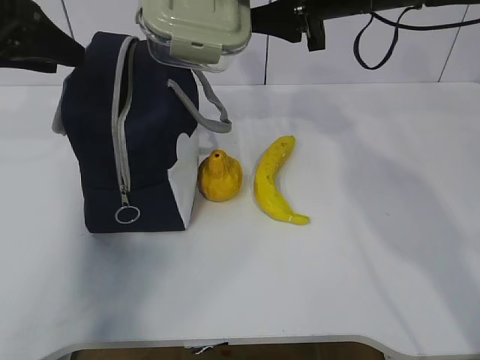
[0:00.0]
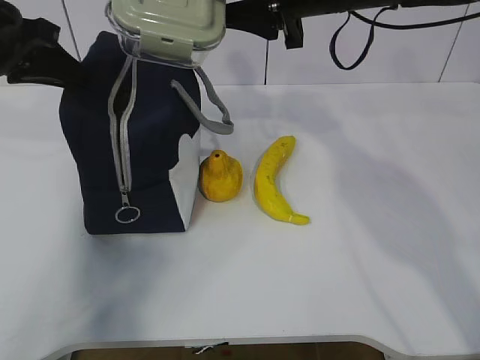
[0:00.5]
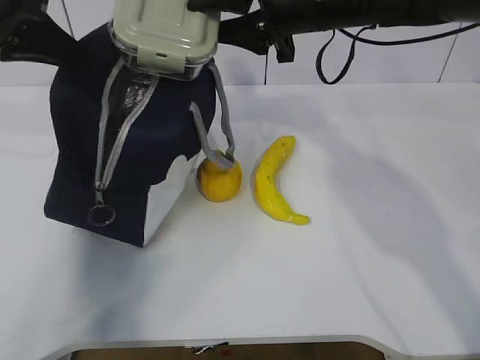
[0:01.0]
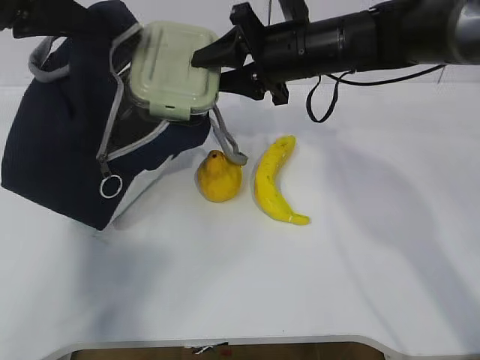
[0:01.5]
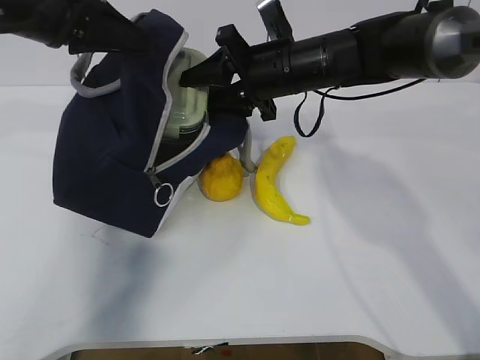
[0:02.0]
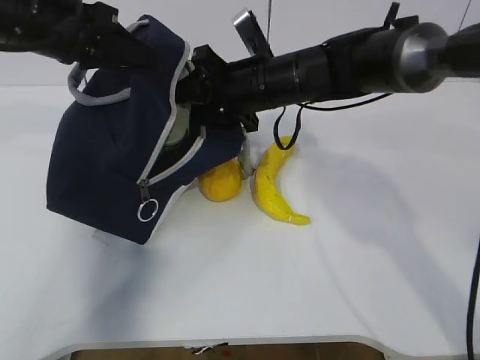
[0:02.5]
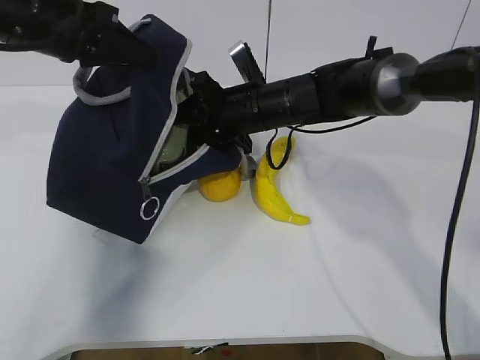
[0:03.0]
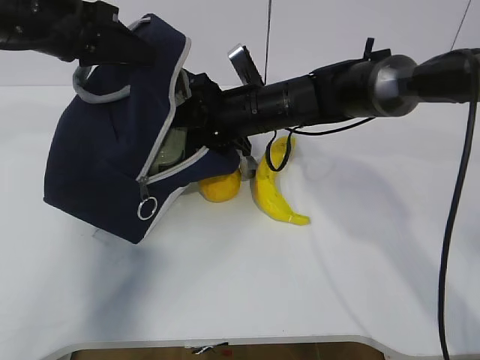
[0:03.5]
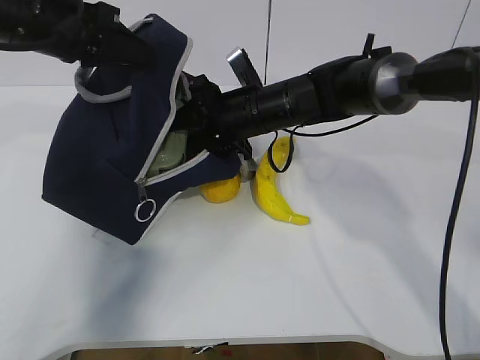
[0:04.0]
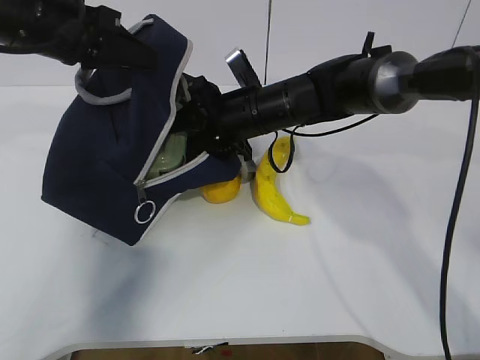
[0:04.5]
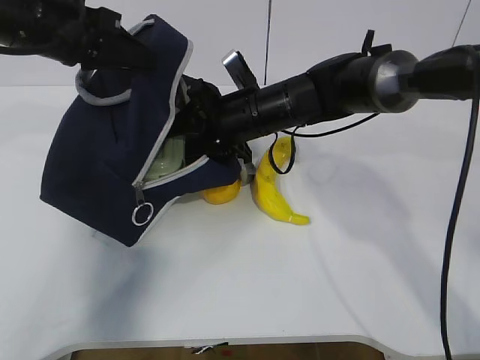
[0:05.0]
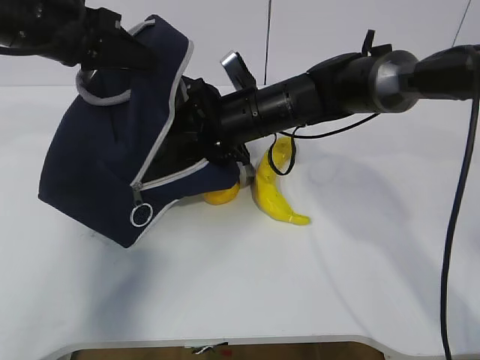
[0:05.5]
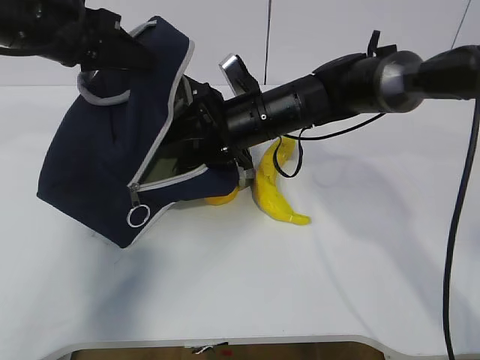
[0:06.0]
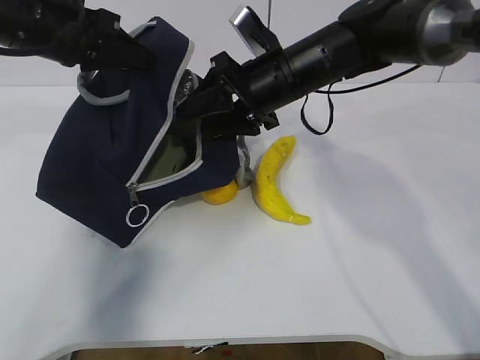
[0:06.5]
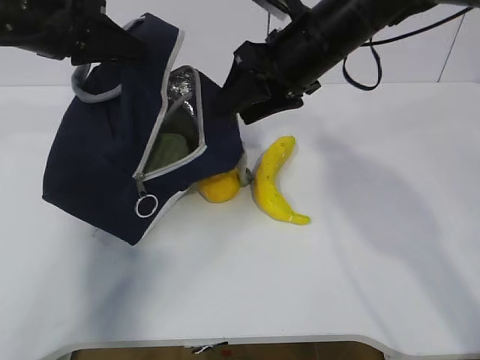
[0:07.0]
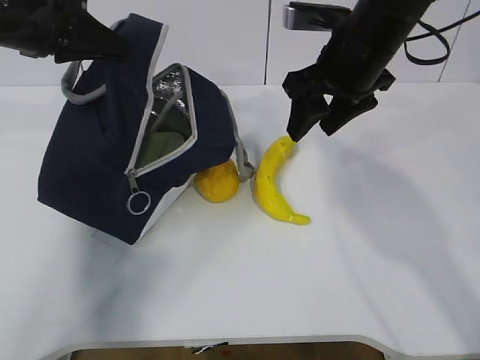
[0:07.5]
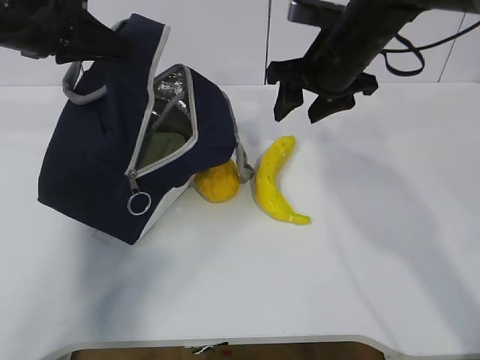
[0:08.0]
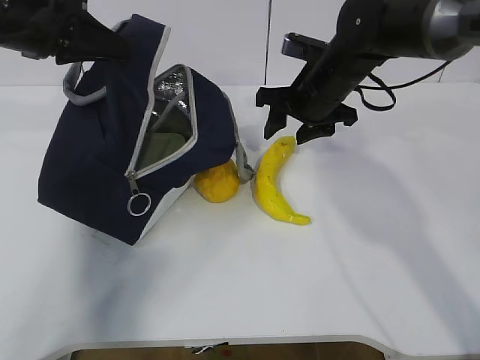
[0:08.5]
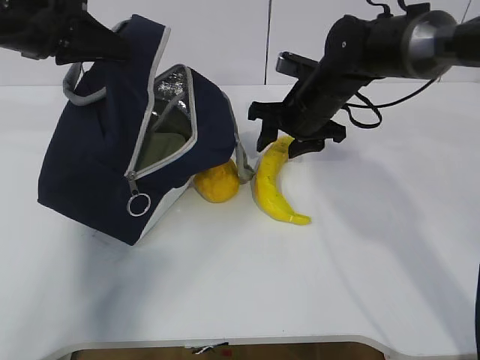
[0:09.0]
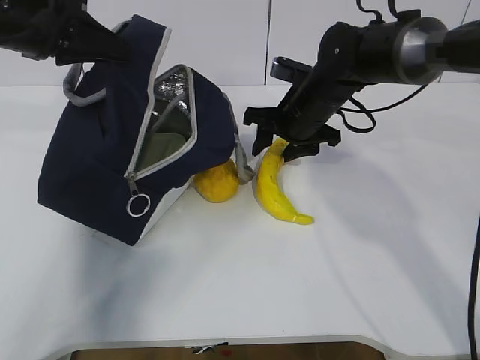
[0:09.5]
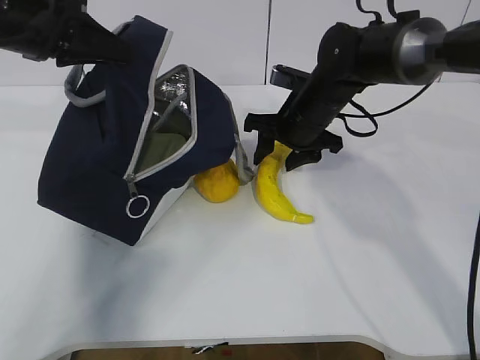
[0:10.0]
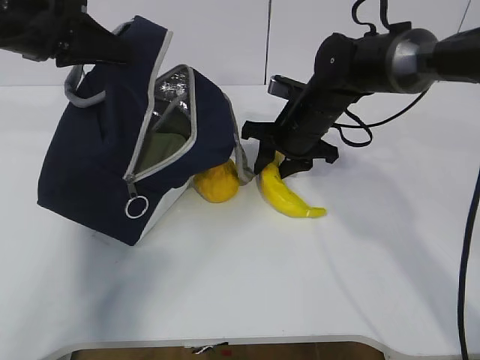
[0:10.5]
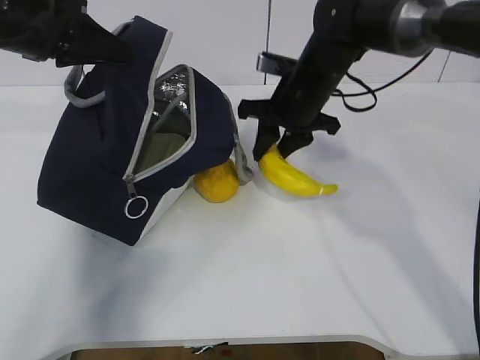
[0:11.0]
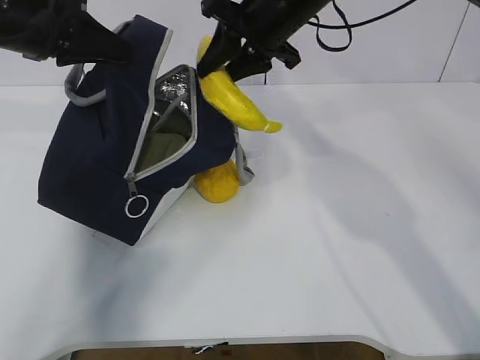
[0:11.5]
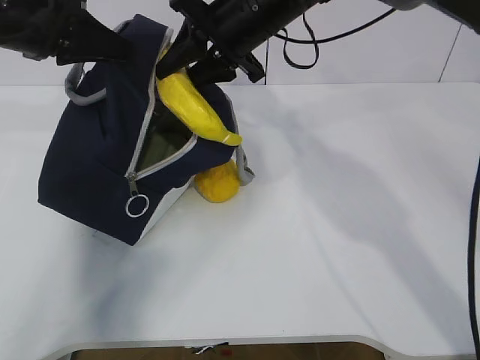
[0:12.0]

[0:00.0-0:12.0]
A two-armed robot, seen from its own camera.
Step, 0:02.5 to 0:05.5: Grab the banana with your right hand.
Step, 0:06.0 to 0:09.5: Place it into the bag with your right hand.
0:00.0 to 0:02.0: The right gripper goes about 10 cm downward and to the left, while the left gripper shifts about 5 cm to the right, and closes its fingers.
0:02.0 to 0:04.0: The right gripper travels downward by roughly 5 cm.
0:04.0 to 0:06.0: The grippers move only a little.
0:06.0 to 0:08.0: The right gripper moves upward and to the right, roughly 10 cm.
0:08.0 to 0:10.0: The right gripper heads downward, covering approximately 10 cm.
0:10.0 to 0:12.0: The right gripper travels upward and to the left by approximately 15 cm, and closes up.

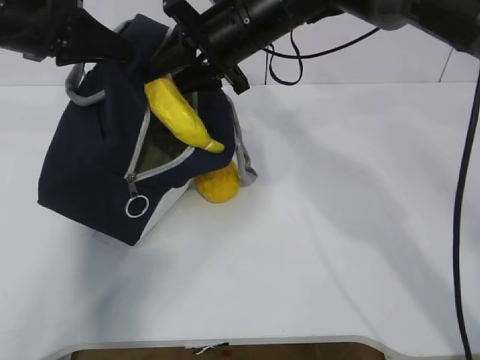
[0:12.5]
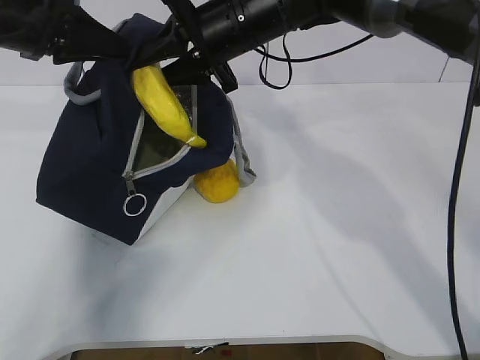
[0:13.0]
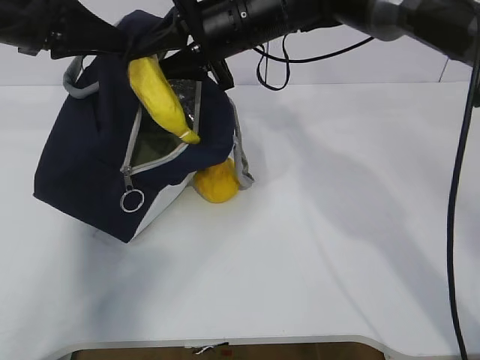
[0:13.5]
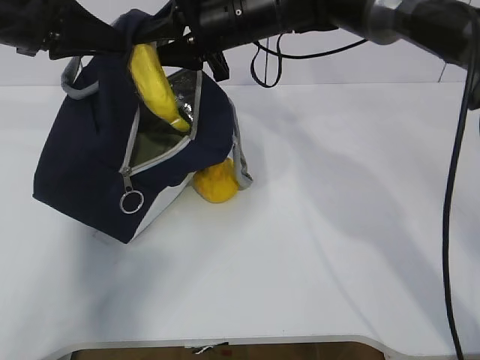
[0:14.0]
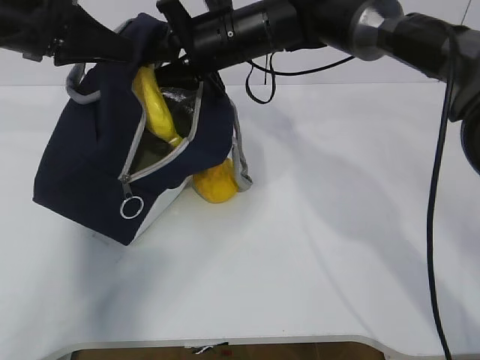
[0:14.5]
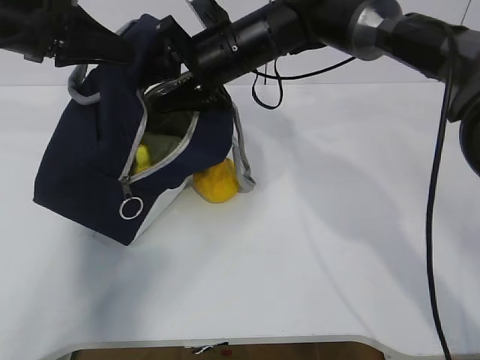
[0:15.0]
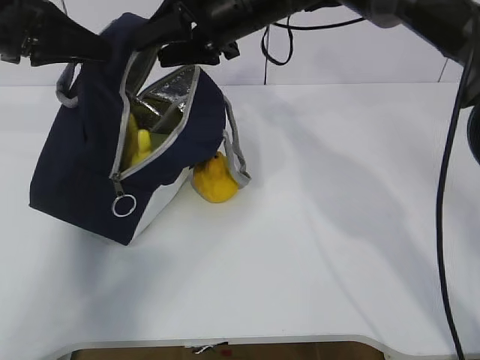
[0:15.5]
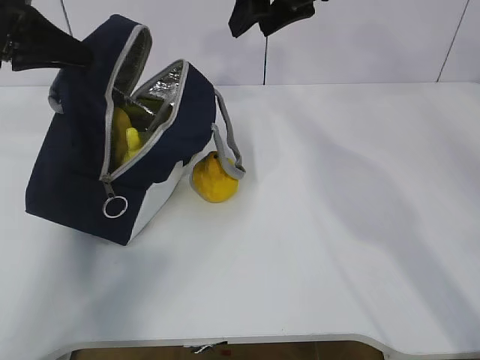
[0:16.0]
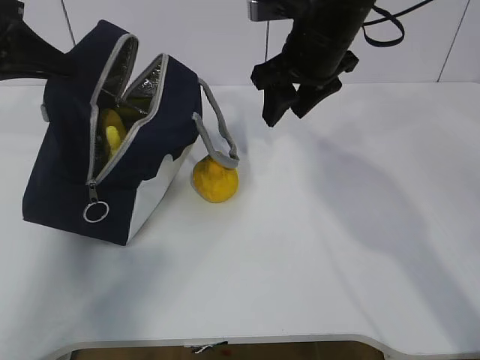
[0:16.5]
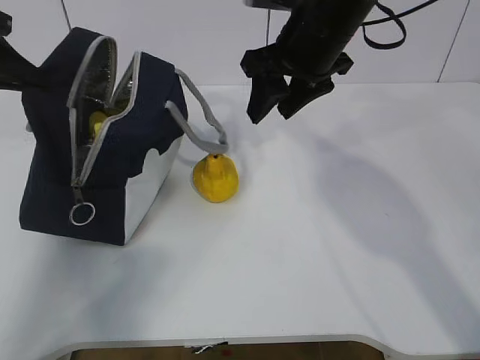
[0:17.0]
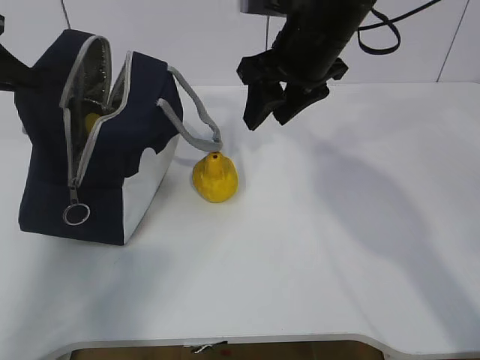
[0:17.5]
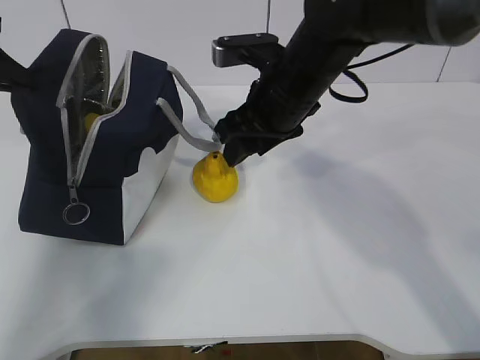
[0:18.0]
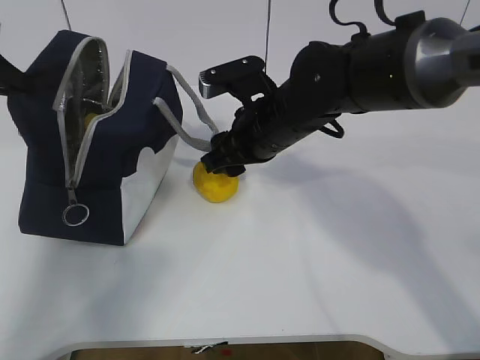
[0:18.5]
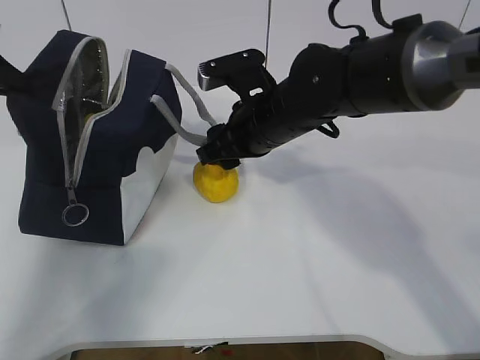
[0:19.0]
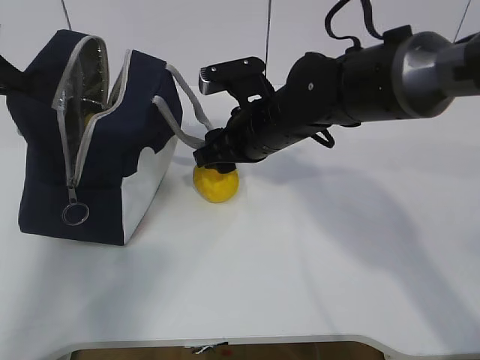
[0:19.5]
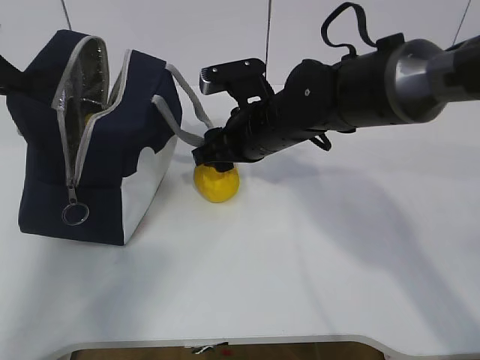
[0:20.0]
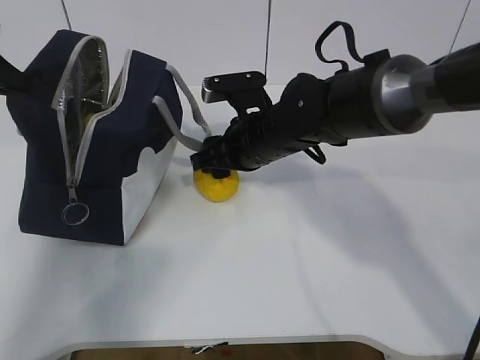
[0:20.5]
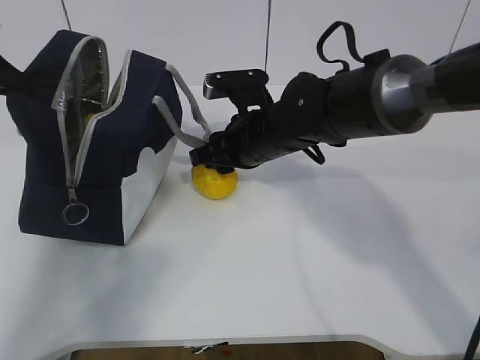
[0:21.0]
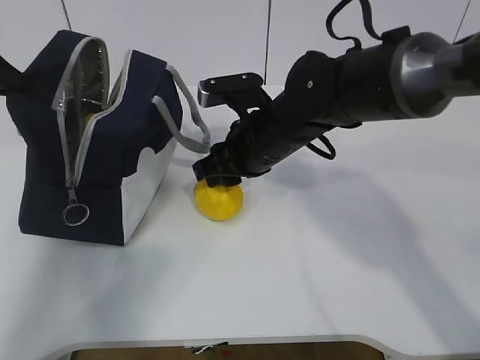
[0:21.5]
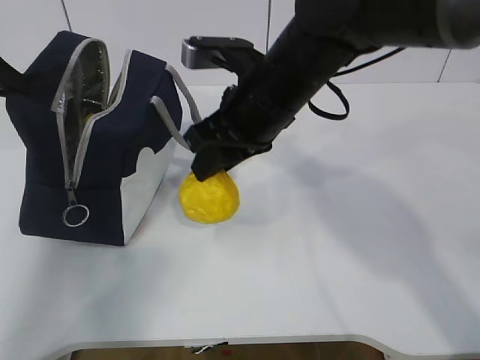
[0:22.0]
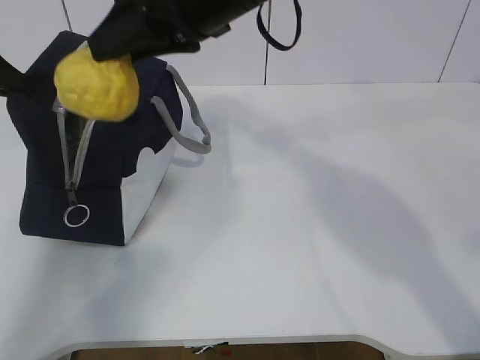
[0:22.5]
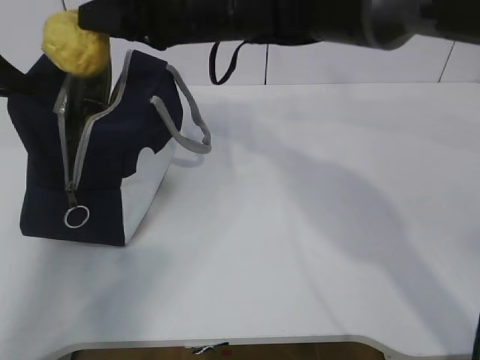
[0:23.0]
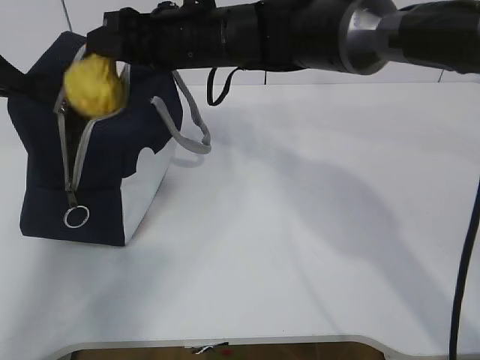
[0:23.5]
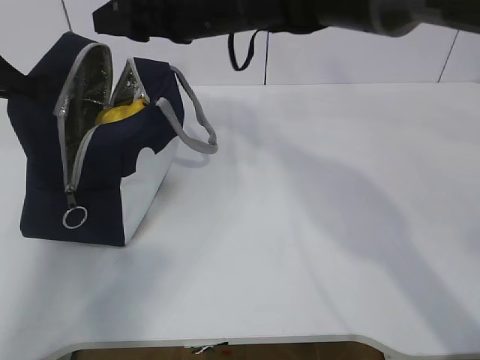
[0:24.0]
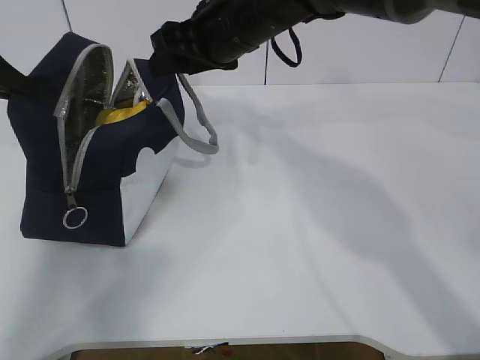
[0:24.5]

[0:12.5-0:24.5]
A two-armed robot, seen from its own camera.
Step, 0:12.5 to 0:15.0: Grab the pear with your right hand.
Step, 0:15.5 to 0:17.0: Secure the lunch bag with your left hand.
Step, 0:17.5 to 0:19.0: Grab the lunch bag with your right hand.
Step, 0:19.5 to 0:21.0: Move the lunch bag to the right.
0:12.5 to 0:14.5: The grippers make only small movements.
0:14.5 to 0:16.5: The right gripper travels to the right by roughly 10 cm, and moves roughly 10 cm upward and comes back; the left gripper shifts roughly 5 cm to the left.
0:16.5 to 0:18.5: The right gripper travels downward and to the left by roughly 10 cm.
0:18.5 to 0:20.5: The grippers make only small movements.
0:20.5 to 0:22.5: The right gripper heads upward, covering about 20 cm.
0:22.5 to 0:24.5: The right gripper travels forward and downward by approximately 10 cm, and opens its fingers.

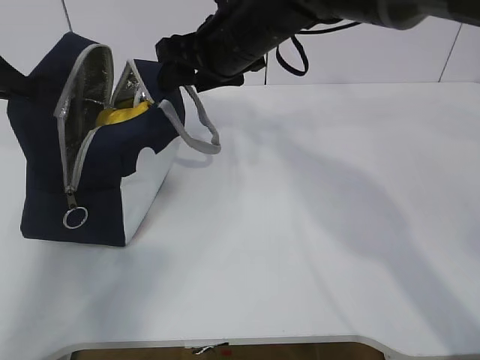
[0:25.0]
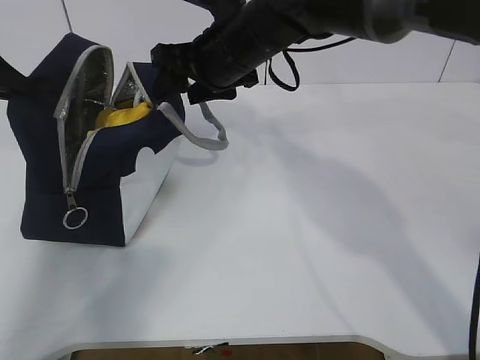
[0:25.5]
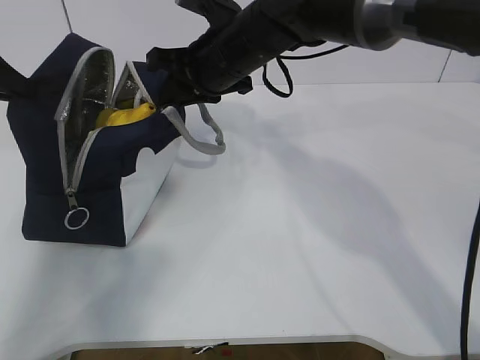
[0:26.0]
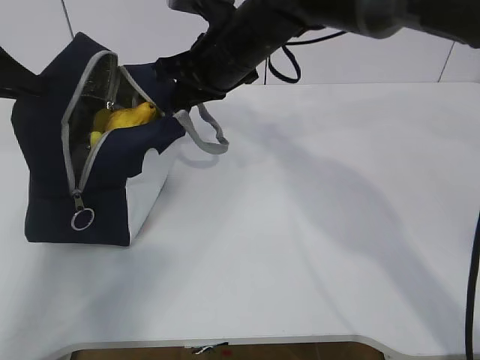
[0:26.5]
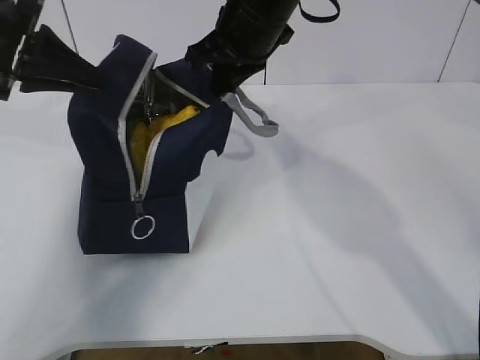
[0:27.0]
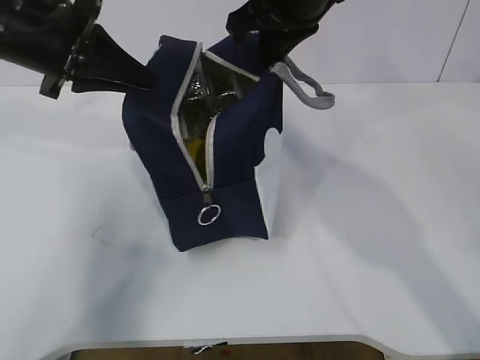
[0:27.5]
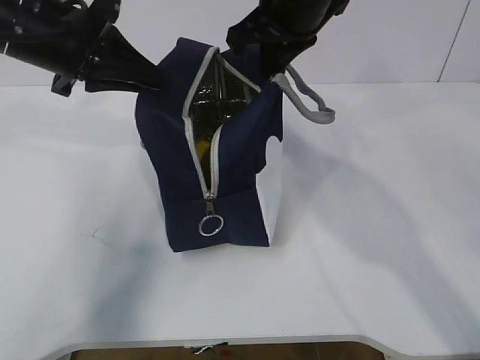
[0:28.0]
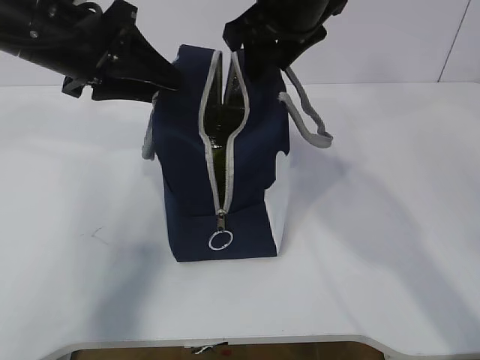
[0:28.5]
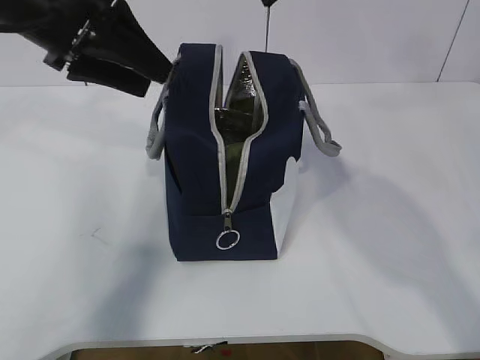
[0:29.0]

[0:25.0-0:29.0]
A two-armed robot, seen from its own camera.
0:25.0 to 0:27.0: The left gripper goes about 5 cm to the right; the right gripper closes up.
0:27.0 to 0:29.0: The left gripper is displaced to the right by approximately 10 cm, and opens up. Meanwhile the right gripper travels upward, backward and to the right by approximately 15 cm, and opens up.
